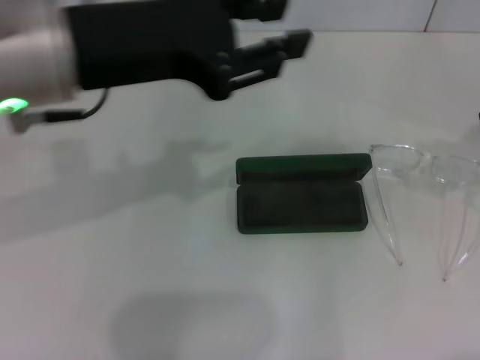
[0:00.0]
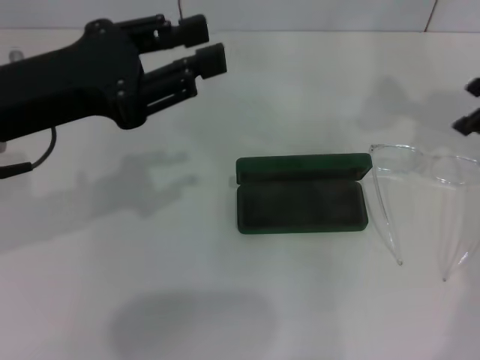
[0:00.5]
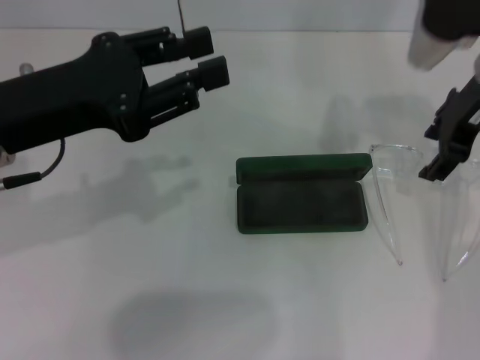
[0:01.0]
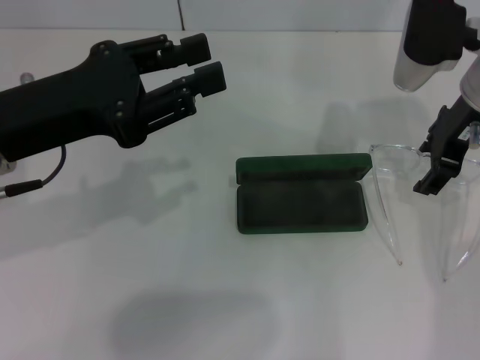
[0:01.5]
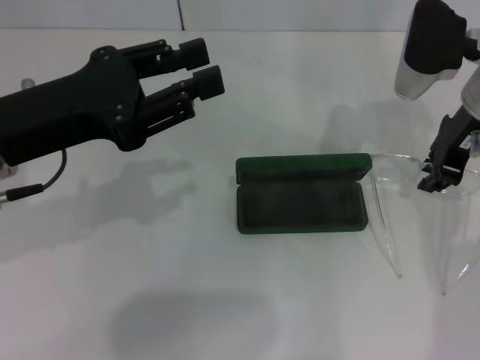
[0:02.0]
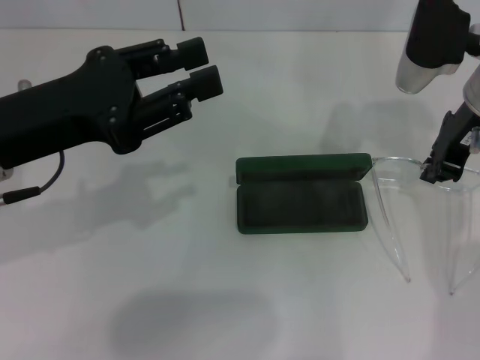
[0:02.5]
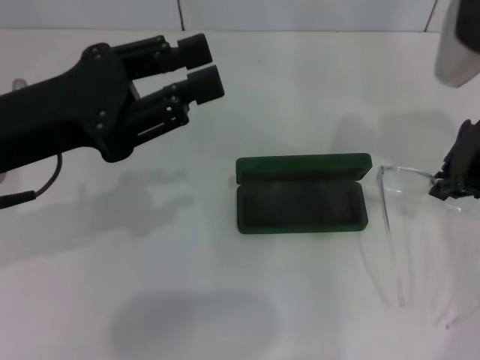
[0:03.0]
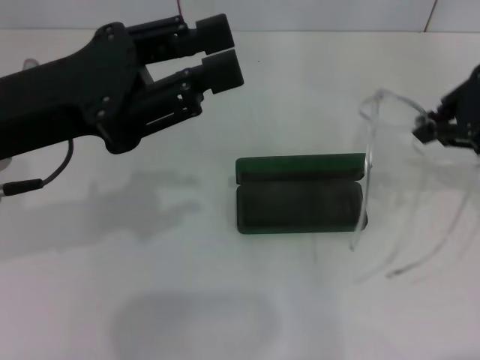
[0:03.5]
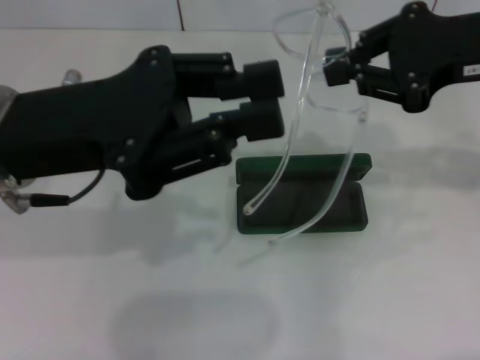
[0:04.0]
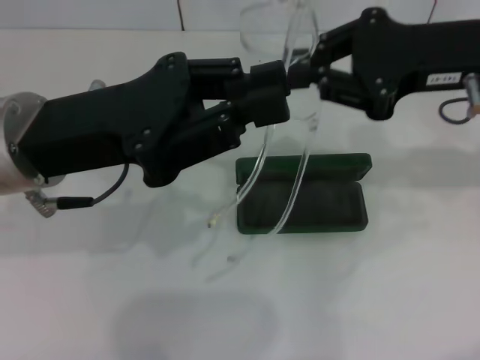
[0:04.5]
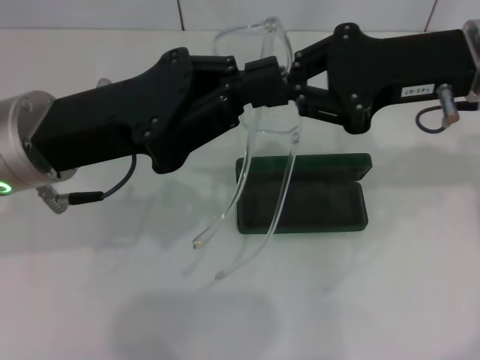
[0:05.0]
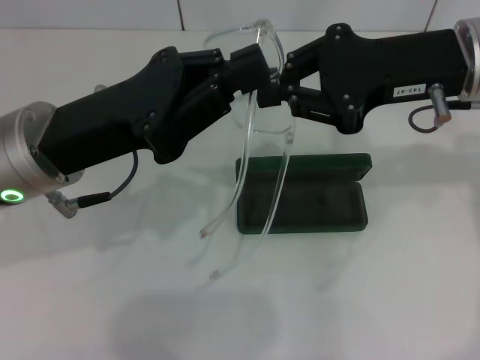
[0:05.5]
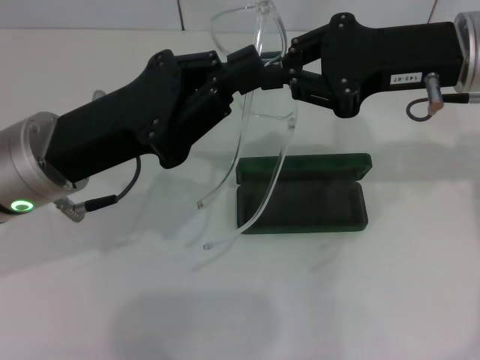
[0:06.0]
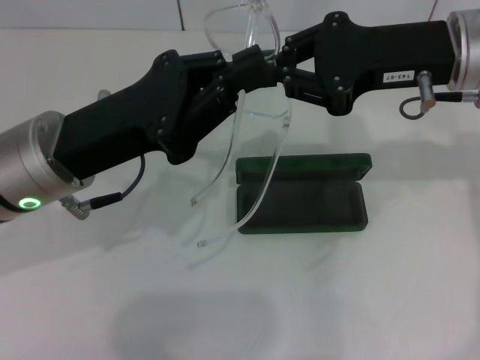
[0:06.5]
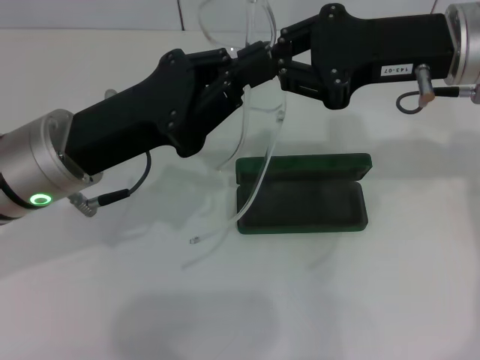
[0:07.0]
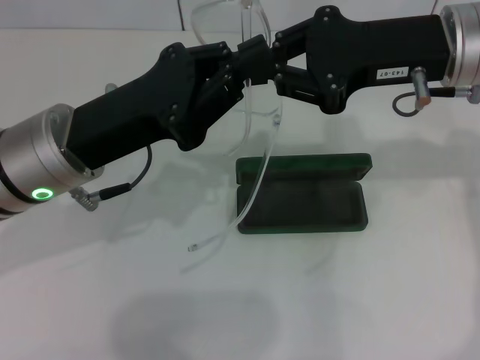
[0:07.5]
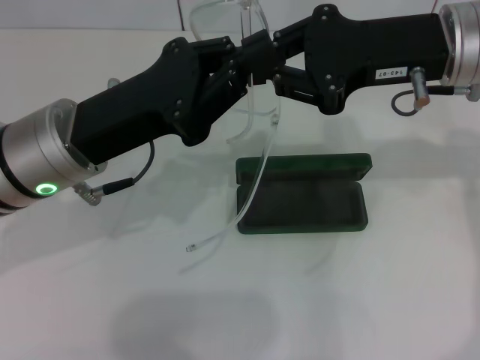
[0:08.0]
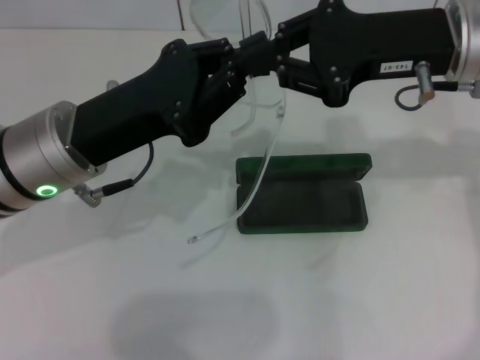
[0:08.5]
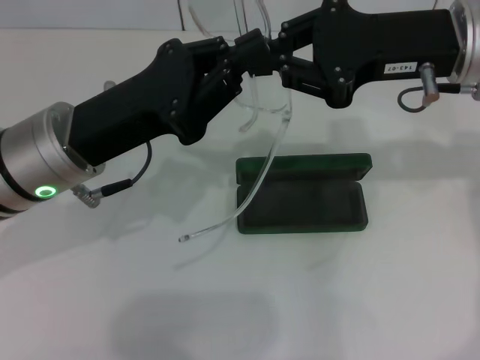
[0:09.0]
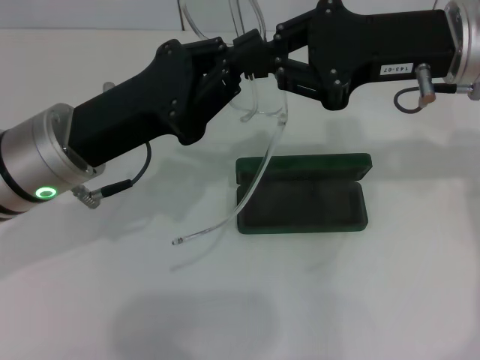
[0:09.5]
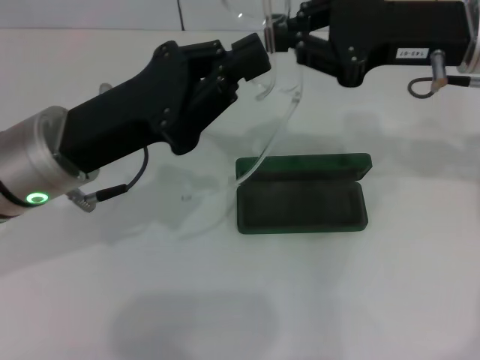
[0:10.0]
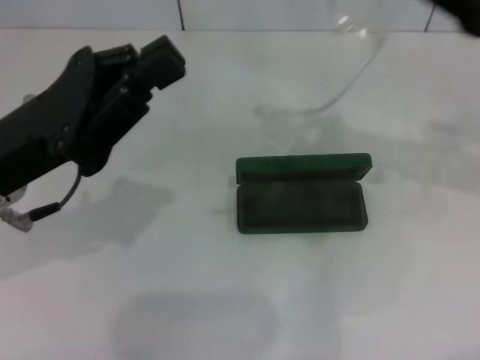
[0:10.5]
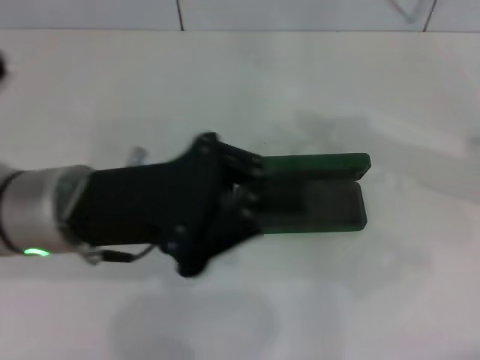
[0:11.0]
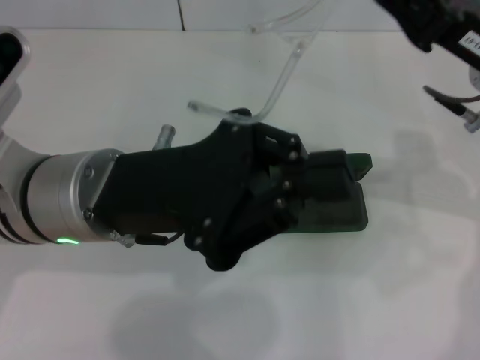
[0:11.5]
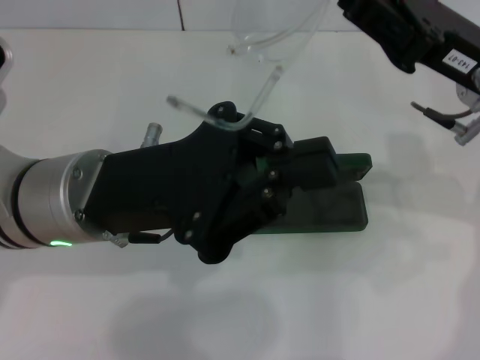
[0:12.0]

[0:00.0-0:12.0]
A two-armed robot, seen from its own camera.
Step, 0.0 to 2.0 s: Grab the eyeglass frame with your right hand.
0.0 to 2.0 s: The right gripper goes roughly 20 cm to the left and forward. The left gripper shifts some 10 cm downward and to the left.
2.0 to 4.0 s: The right gripper goes roughly 10 cm upward and backward, and closes its fingers.
4.0 to 6.0 s: The left gripper travels downward by roughly 5 cm, and closes its fingers, while the right gripper moves some 5 cm.
6.0 to 10.0 s: The grippers stay close to where they were, moving slightly.
10.0 to 12.0 s: The right gripper travels to the right and back again, some 10 cm each way.

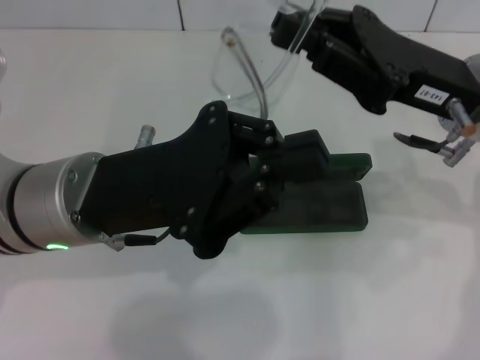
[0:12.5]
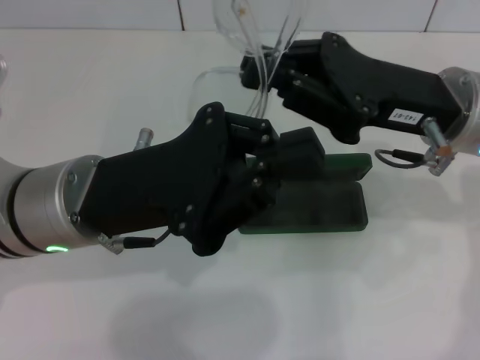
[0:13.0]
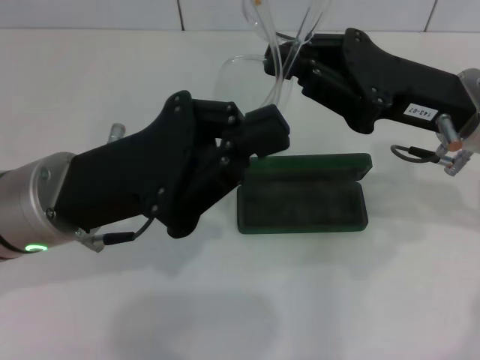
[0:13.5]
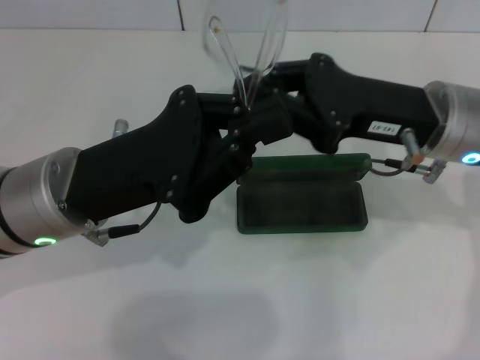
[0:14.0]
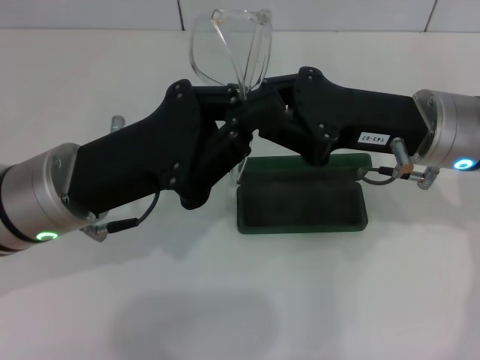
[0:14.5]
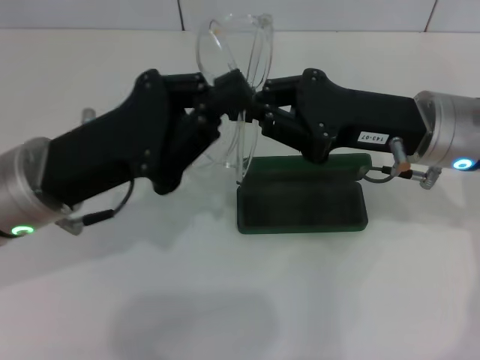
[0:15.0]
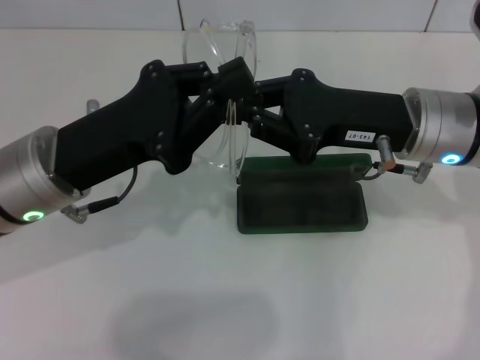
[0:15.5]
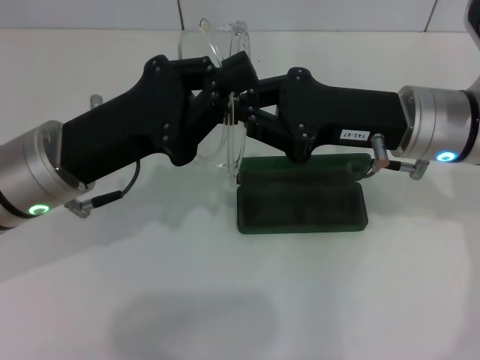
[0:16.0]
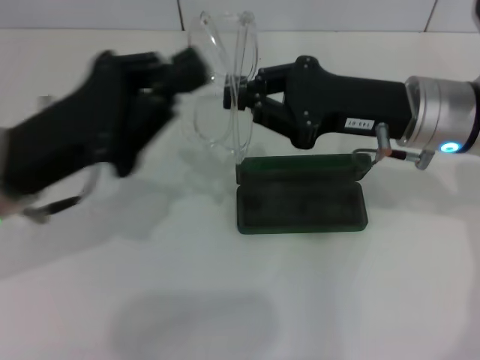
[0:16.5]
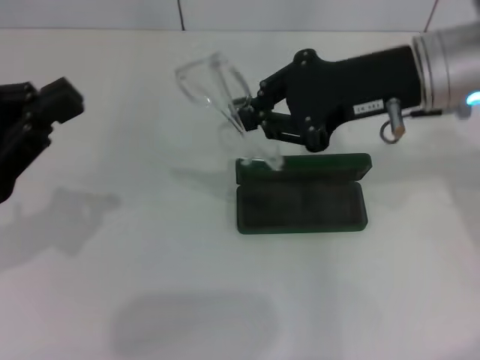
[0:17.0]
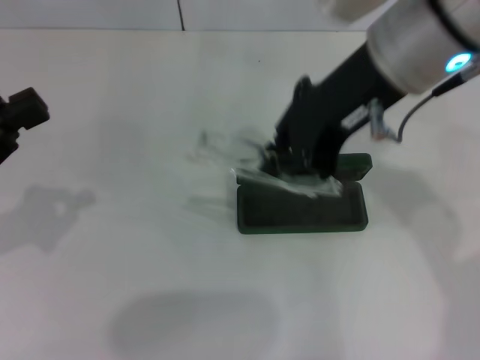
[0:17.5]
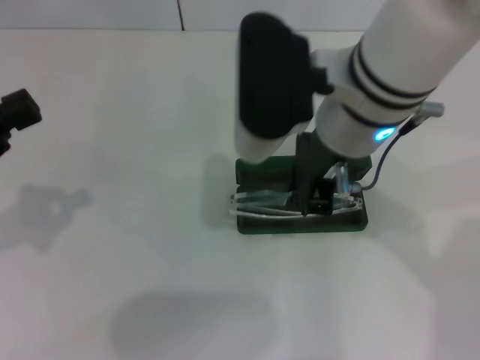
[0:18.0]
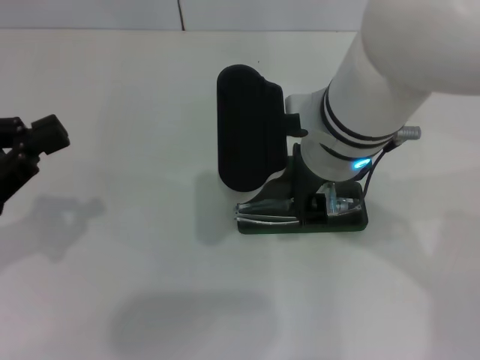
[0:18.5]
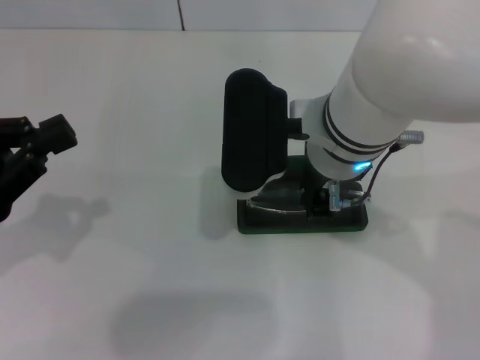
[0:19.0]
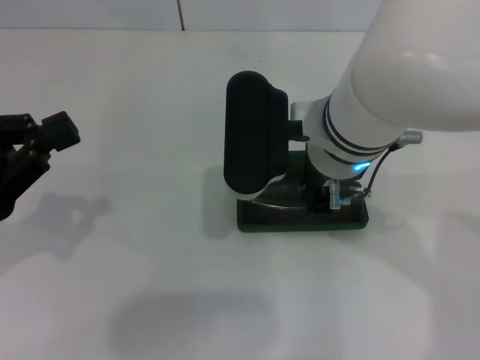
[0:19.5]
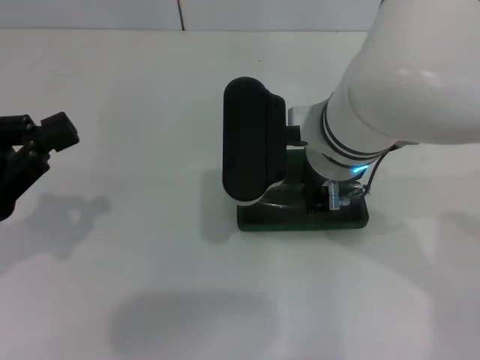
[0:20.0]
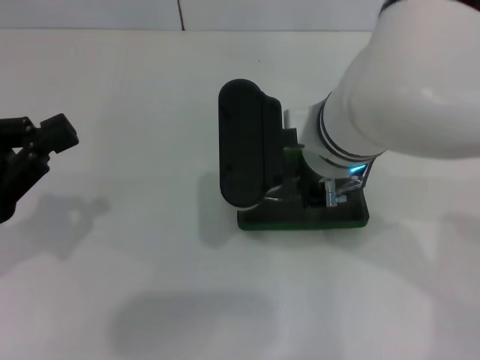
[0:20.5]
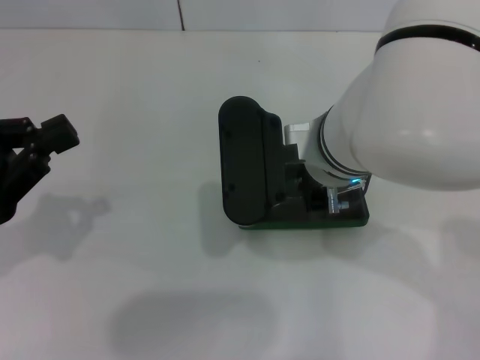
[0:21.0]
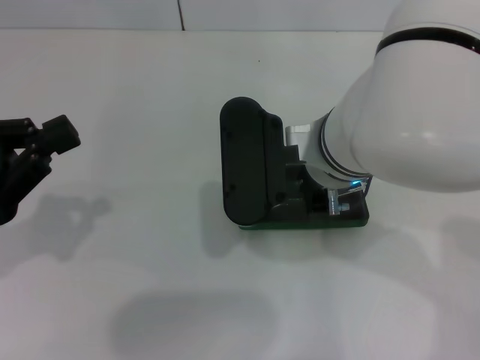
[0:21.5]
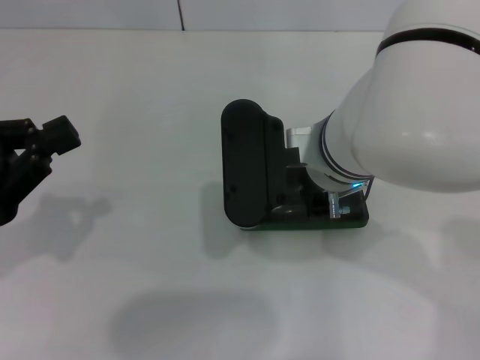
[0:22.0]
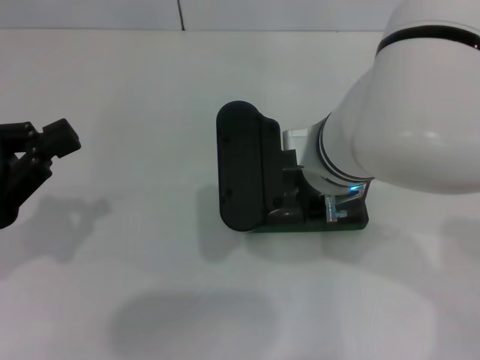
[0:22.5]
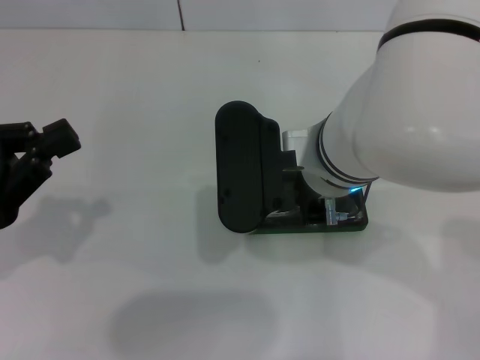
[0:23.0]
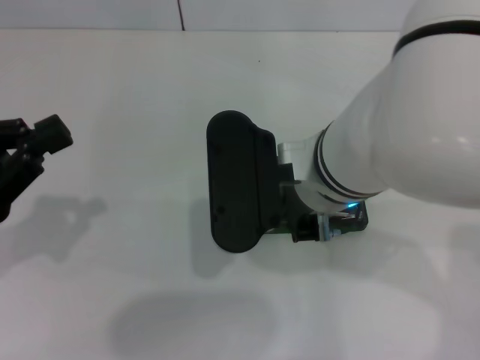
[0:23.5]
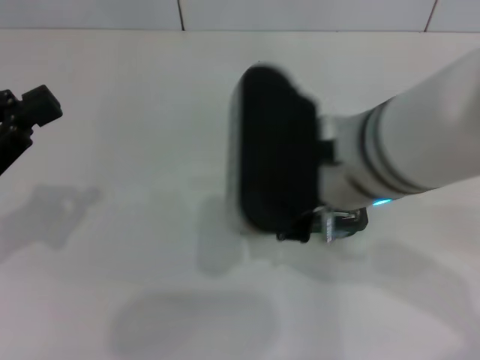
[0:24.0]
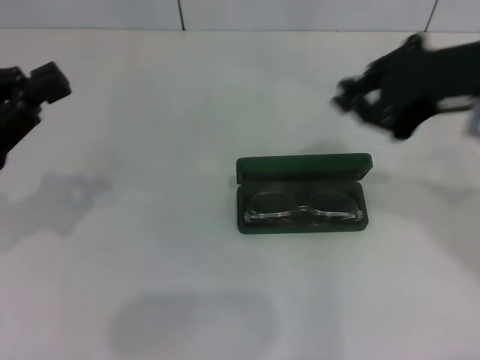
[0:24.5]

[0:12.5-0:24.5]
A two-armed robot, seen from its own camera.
Step, 12.5 to 16.0 s: Fold the frame with your left hand.
Step, 16.5 to 24.0 s: Put the glasses into the case with your right hand.
16.5 to 18.5 s: Both grippers move to the left, approximately 10 cm. The right gripper travels upward and back again, about 15 cm each way.
18.5 to 22.5 s: The grippers move only a little.
22.5 to 24.5 s: The right gripper goes approximately 20 cm to the right and upward.

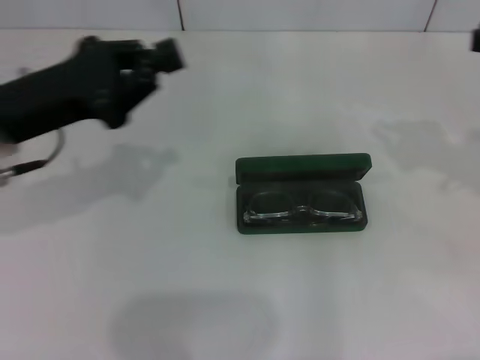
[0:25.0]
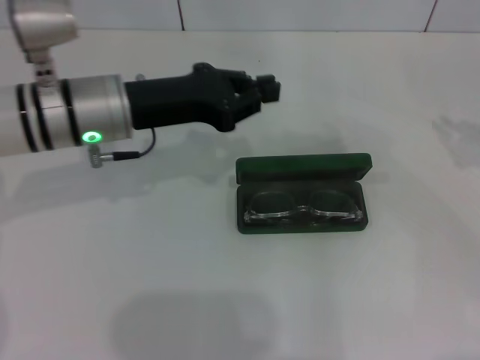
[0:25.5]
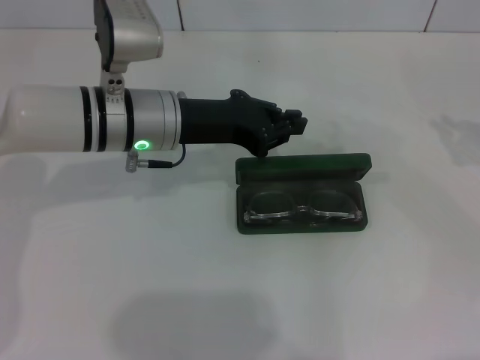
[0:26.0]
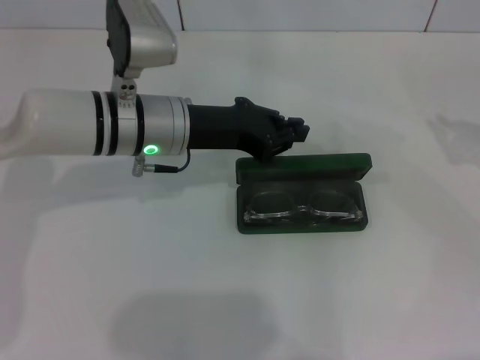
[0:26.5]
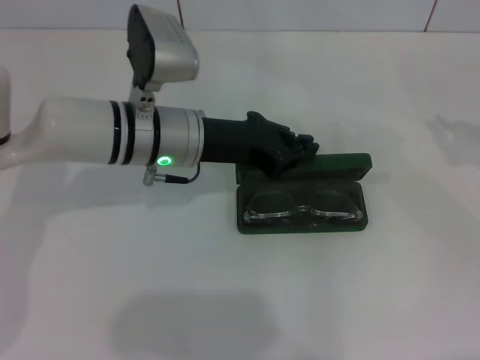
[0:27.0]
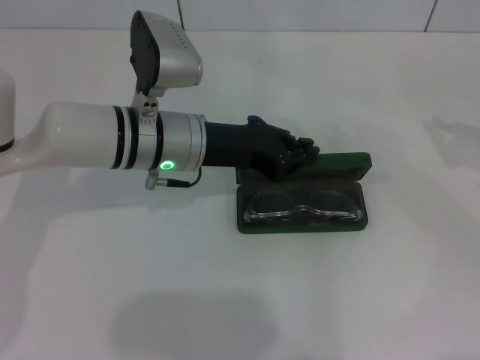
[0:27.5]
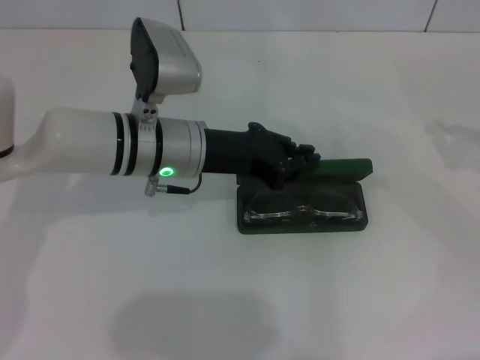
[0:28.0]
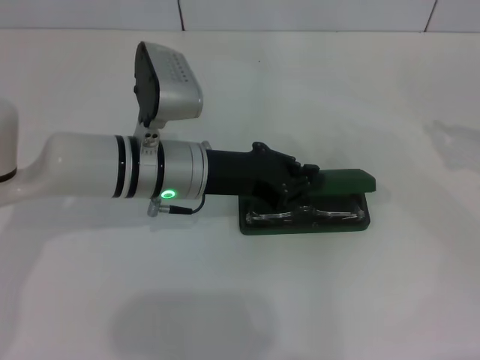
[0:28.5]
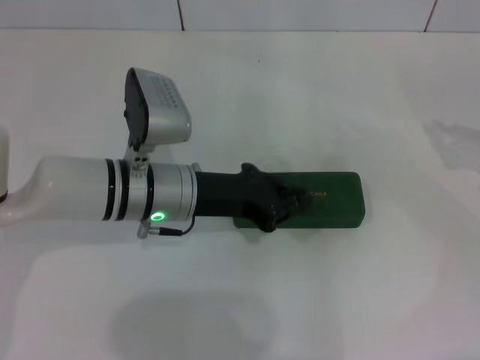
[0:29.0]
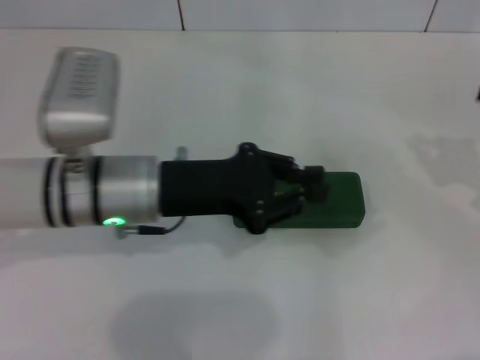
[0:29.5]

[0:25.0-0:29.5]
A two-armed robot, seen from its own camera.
Step, 25.0 to 29.0 s: Close the glasses case with your left hand.
25.0 to 27.0 s: The left gripper heads to the right and downward, covering roughly 15 cm, while the right gripper goes about 5 cm downward.
27.0 to 29.5 s: The left gripper heads backward, covering roughly 5 cm.
